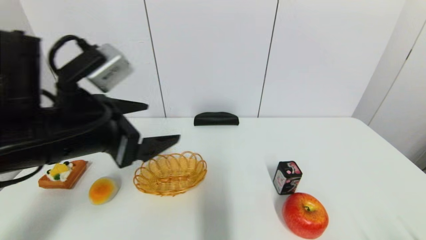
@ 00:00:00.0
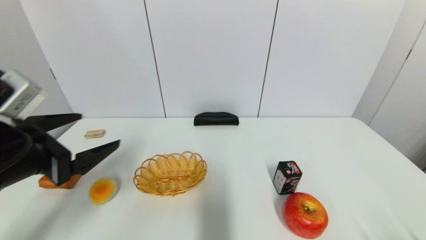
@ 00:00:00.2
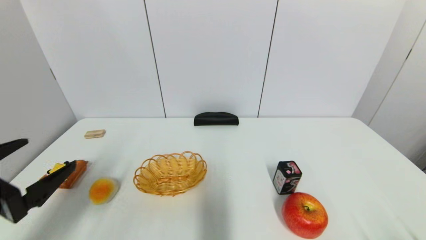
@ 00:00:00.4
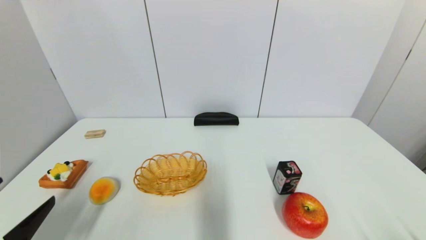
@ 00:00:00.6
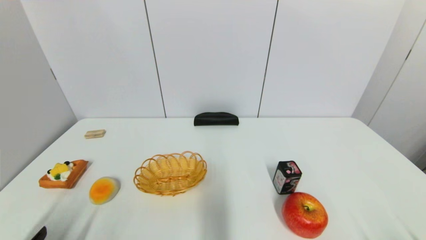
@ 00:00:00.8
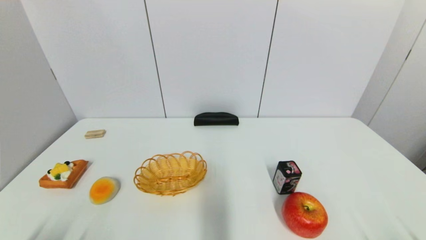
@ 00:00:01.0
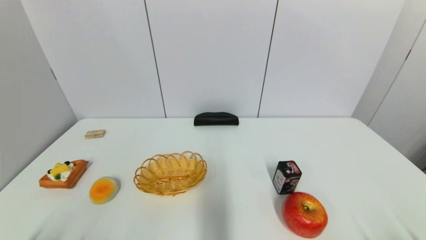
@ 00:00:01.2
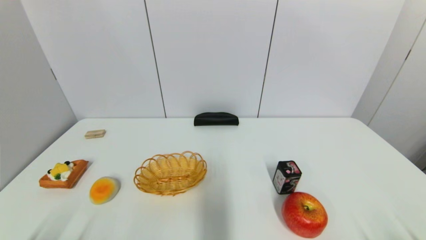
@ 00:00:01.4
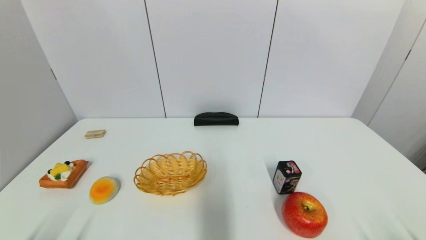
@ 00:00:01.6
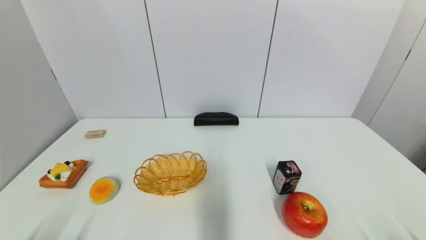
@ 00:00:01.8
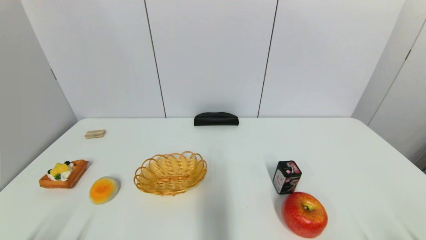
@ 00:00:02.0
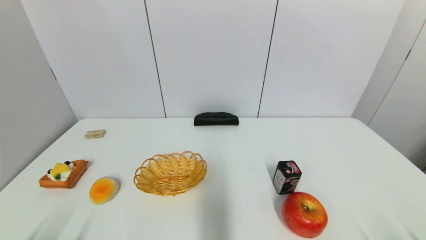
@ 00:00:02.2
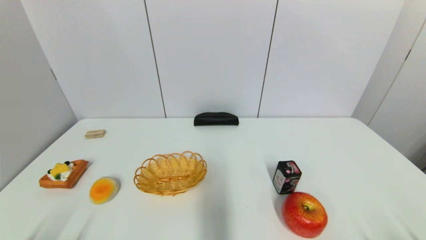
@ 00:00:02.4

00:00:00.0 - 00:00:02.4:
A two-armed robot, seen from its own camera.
Task of the whole recording: put the apple in the designated position.
00:00:00.0 - 00:00:01.2: The left gripper travels downward, backward and to the left by about 30 cm.
